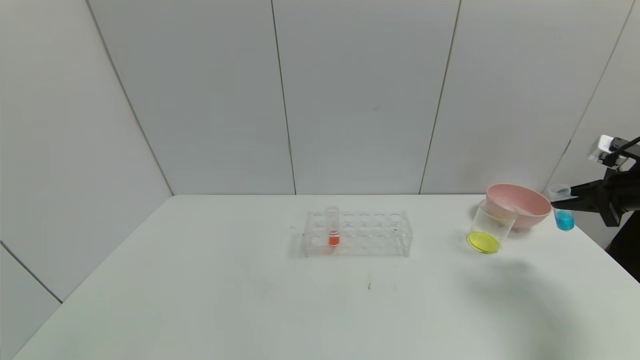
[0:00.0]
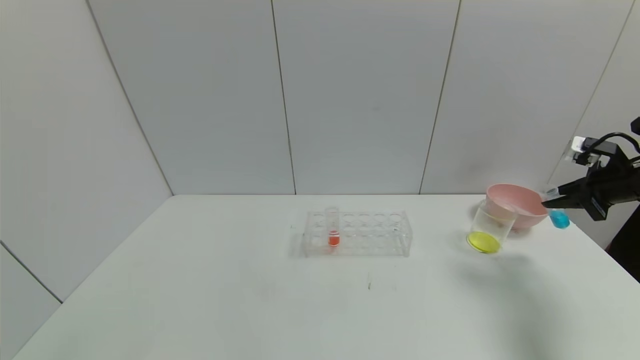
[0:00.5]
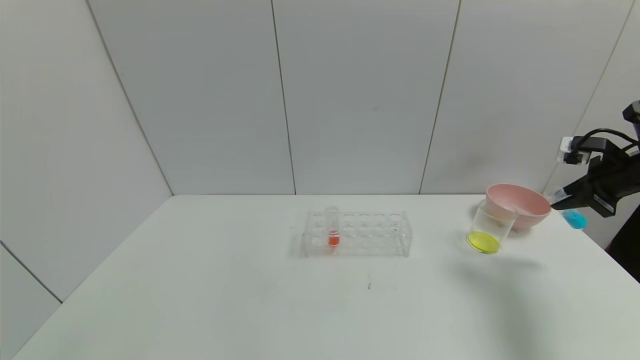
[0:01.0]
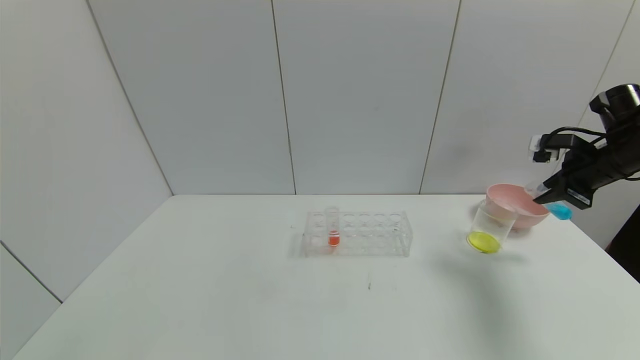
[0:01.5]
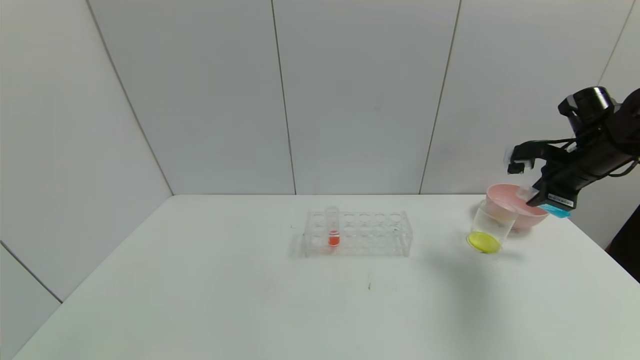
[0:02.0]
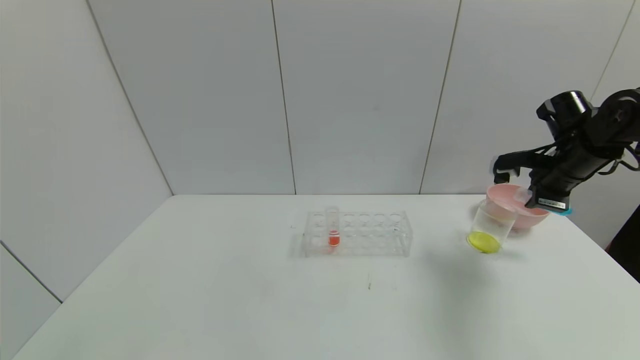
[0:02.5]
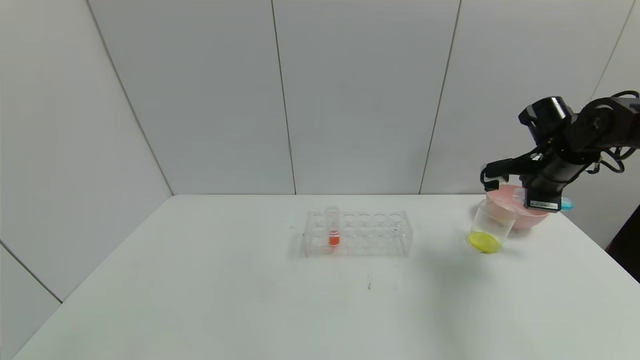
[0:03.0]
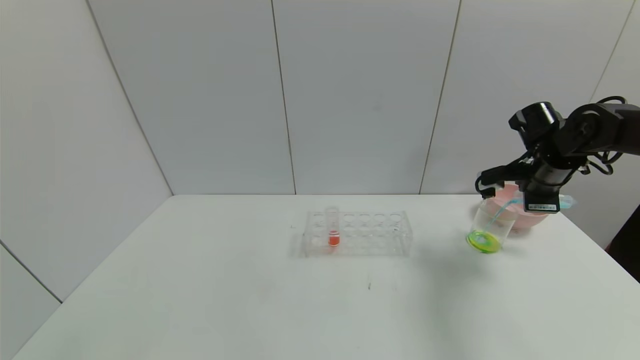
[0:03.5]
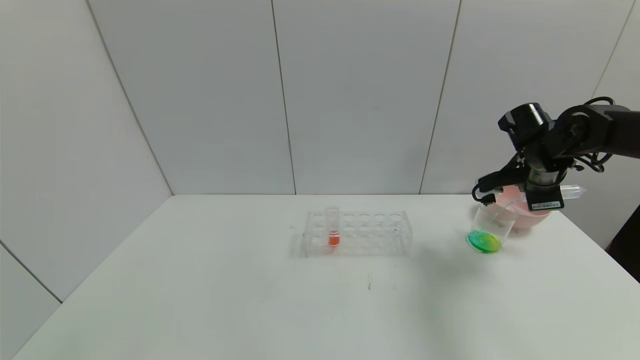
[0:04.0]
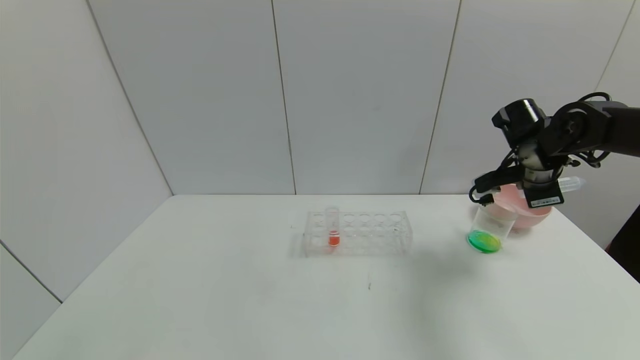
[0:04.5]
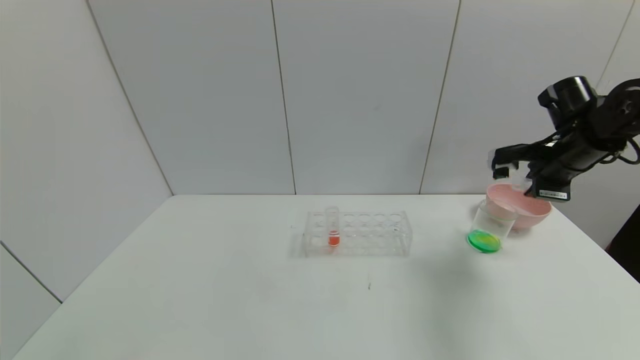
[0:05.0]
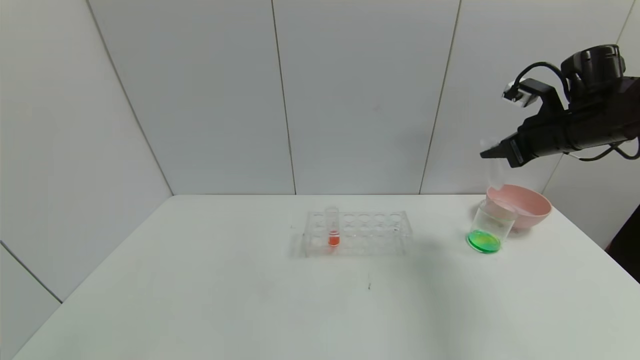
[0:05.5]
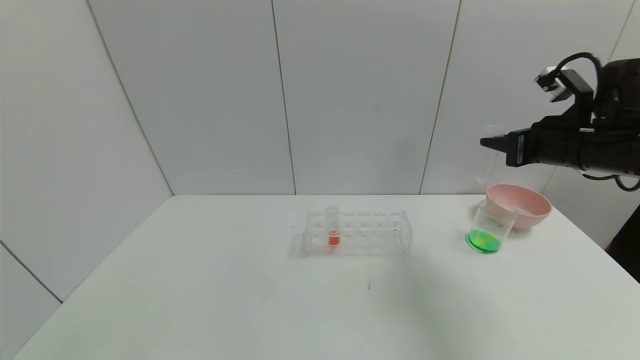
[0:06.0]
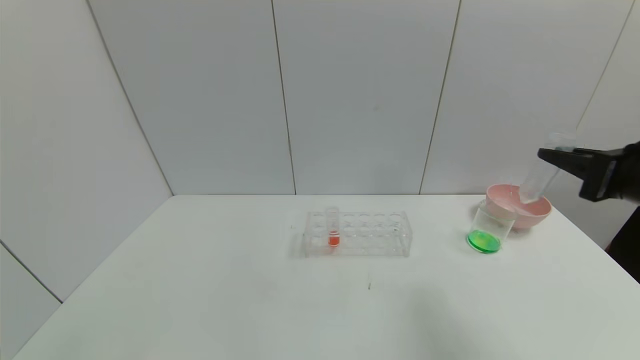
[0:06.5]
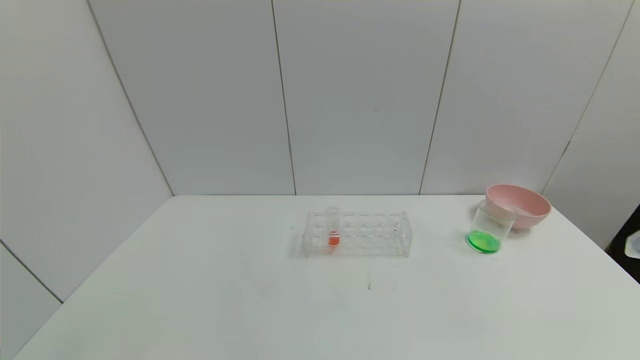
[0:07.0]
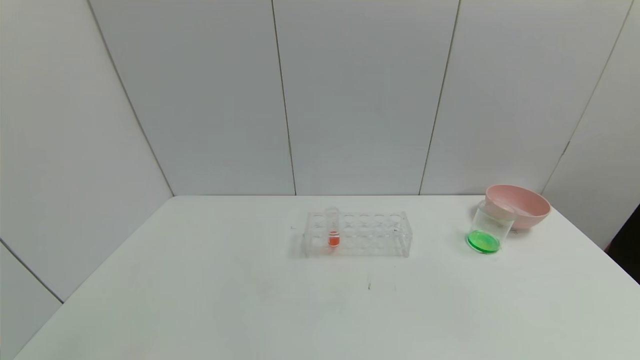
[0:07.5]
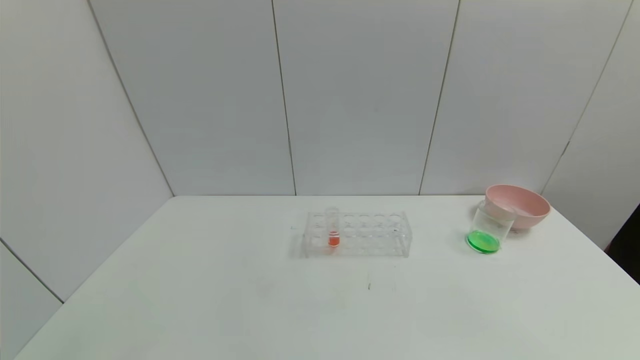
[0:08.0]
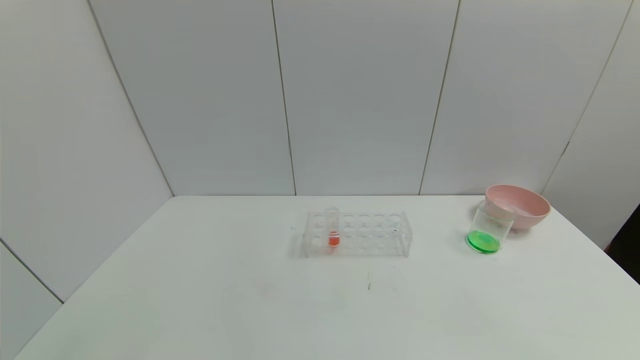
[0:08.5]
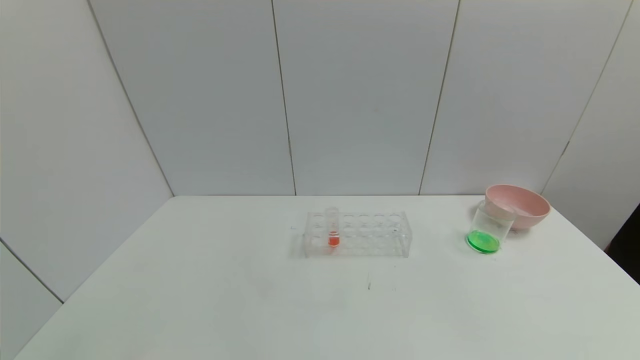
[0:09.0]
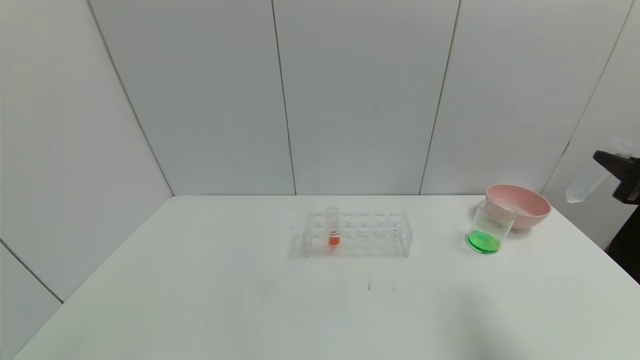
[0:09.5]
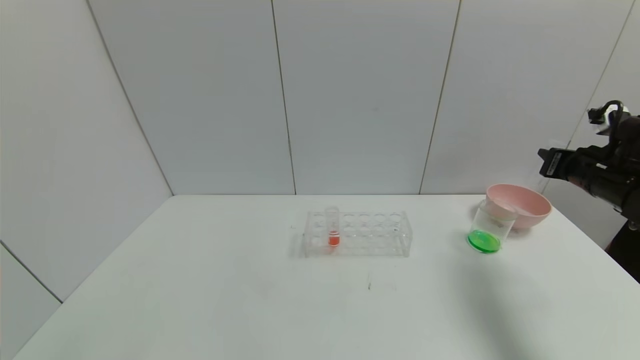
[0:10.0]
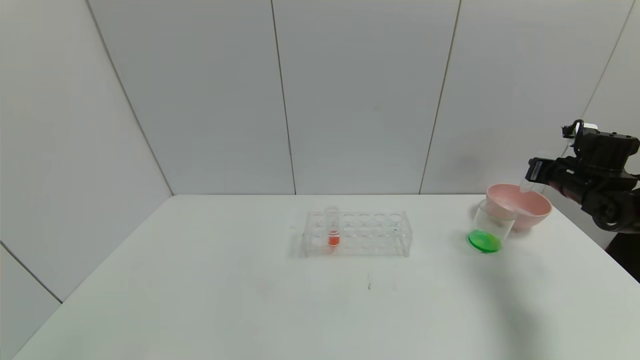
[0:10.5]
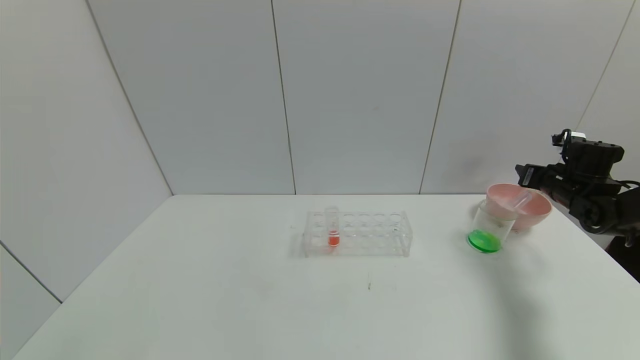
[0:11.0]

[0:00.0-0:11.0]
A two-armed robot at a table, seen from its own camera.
Task of the whole recording: pick up the test tube with yellow pigment and the test tube with blue pigment by grippers and pour them into the beaker.
Step, 0:00.0 to 0:04.5: Pour the blue reagent into the graduated cylinder with the right gripper.
0:00.0 to 0:02.0: The right gripper travels to the left and forward by roughly 10 cm.
0:02.0 to 0:03.5: The right gripper moves approximately 5 cm.
0:03.5 to 0:05.5: The right gripper goes roughly 5 cm upward.
0:05.5 to 0:07.5: The right gripper travels backward by some 40 cm.
0:09.0 to 0:11.0: The right gripper moves forward, approximately 40 cm, and opens up.

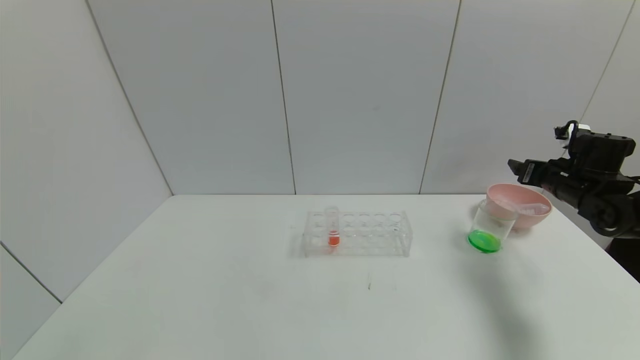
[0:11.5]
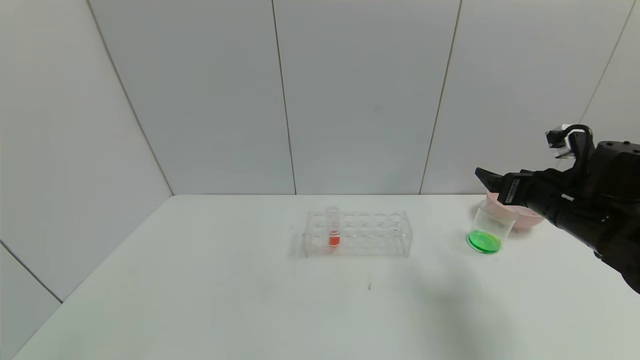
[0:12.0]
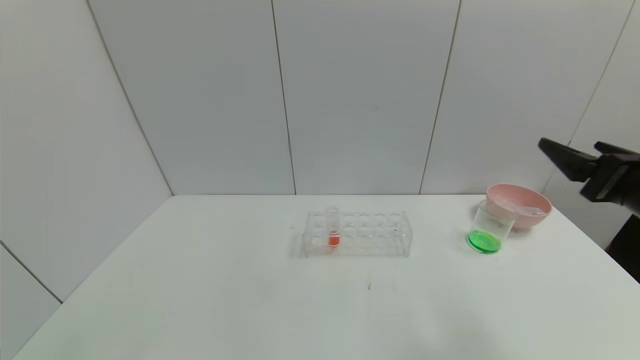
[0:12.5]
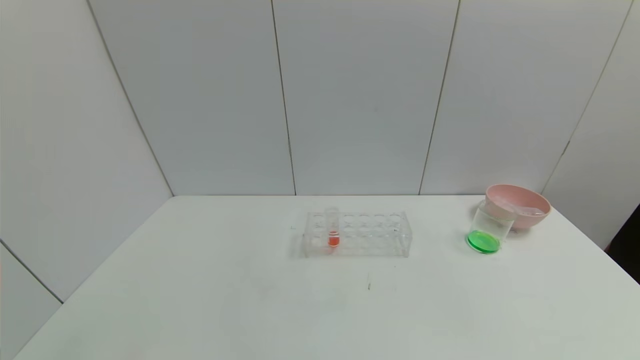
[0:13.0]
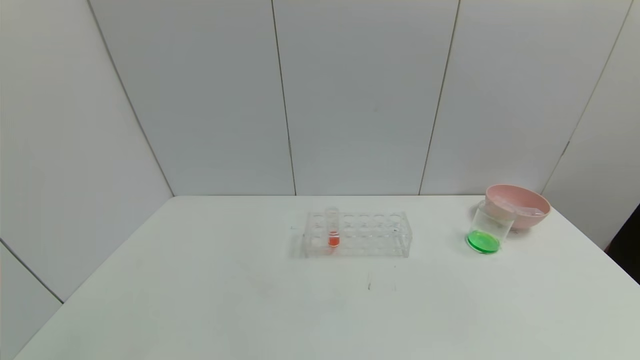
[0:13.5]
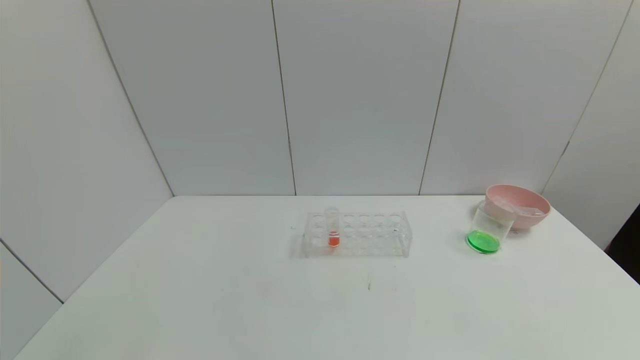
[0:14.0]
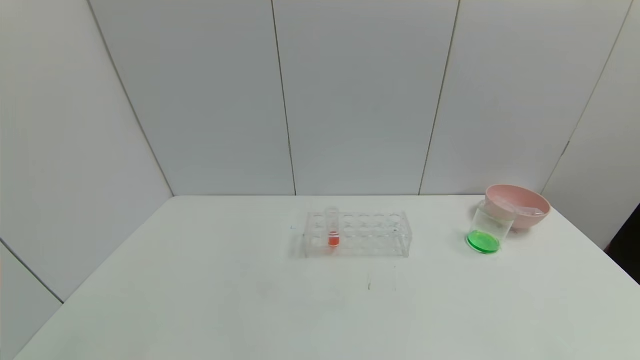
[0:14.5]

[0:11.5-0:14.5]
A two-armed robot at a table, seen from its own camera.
Task of the whole recording: pick up the test tube with yellow pigment and the test tube with blue pigment by grippers and pour them into the beaker.
0:11.5 to 0:13.0: The right gripper travels backward by about 40 cm.

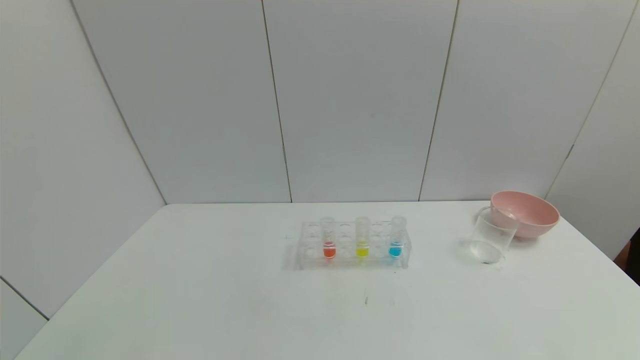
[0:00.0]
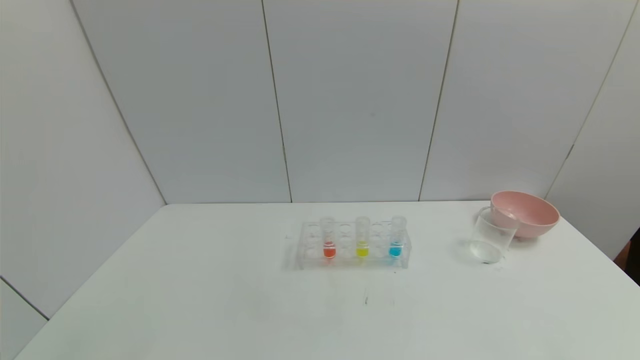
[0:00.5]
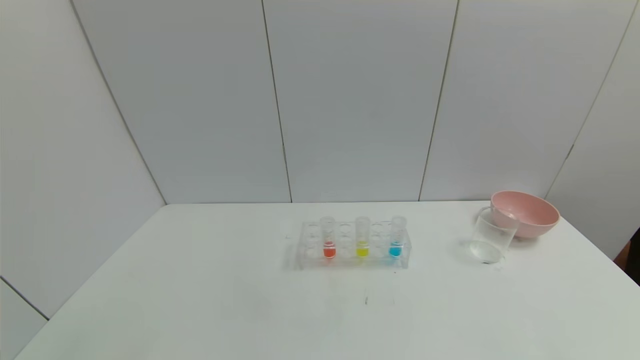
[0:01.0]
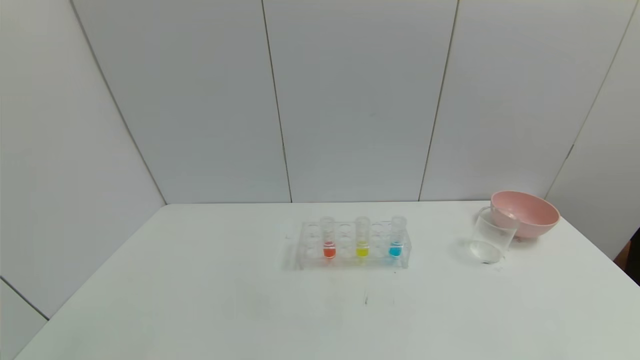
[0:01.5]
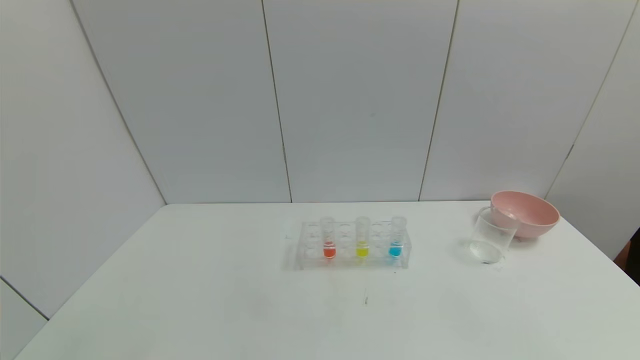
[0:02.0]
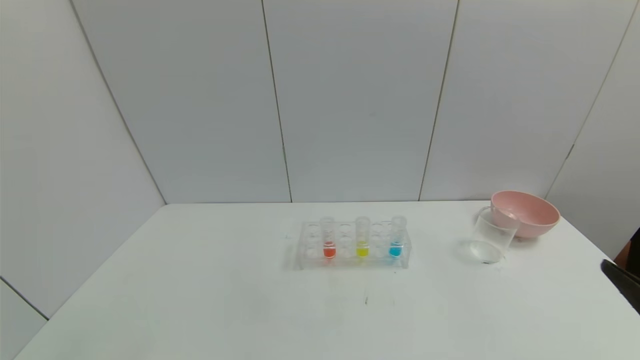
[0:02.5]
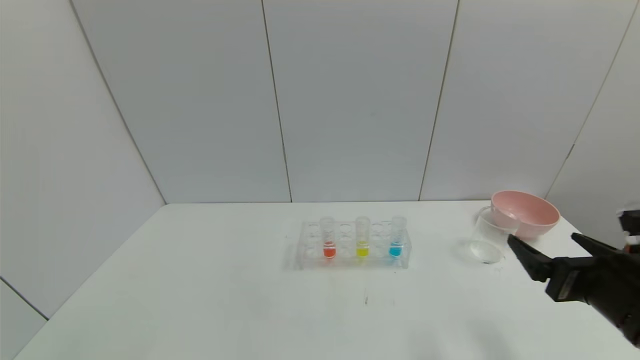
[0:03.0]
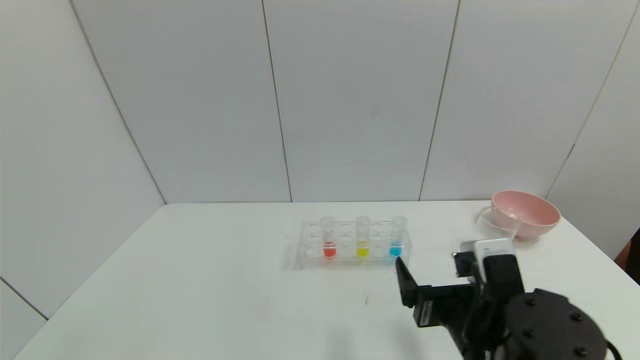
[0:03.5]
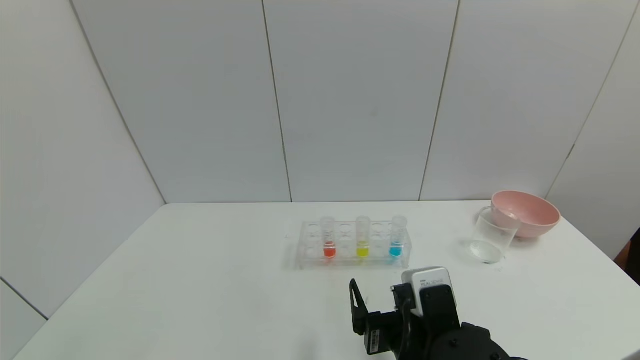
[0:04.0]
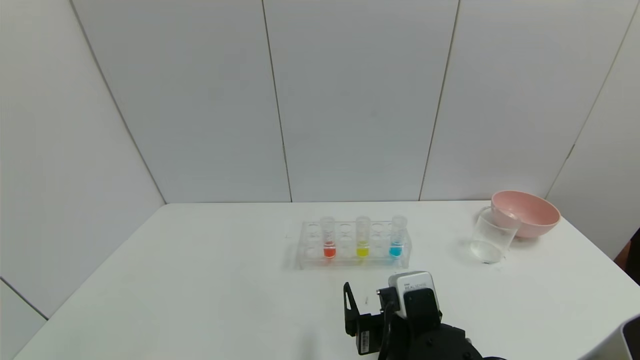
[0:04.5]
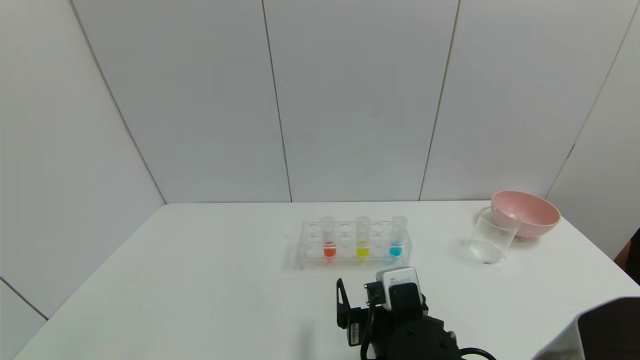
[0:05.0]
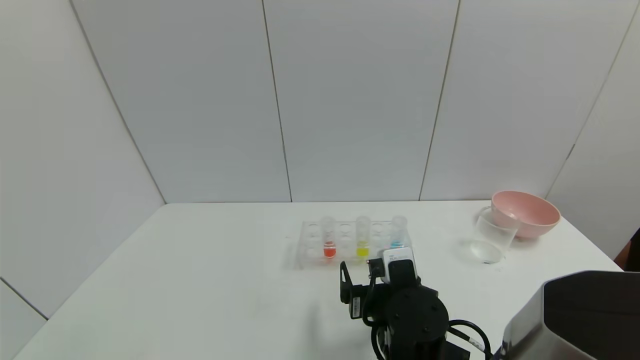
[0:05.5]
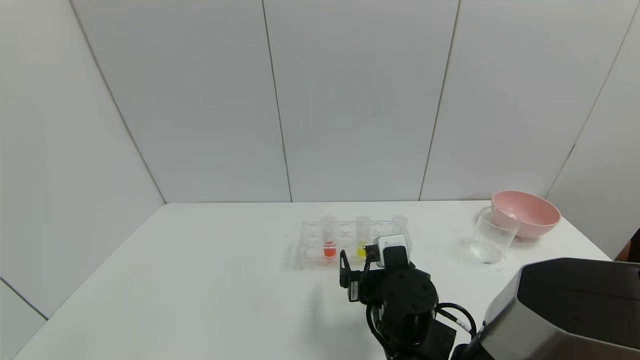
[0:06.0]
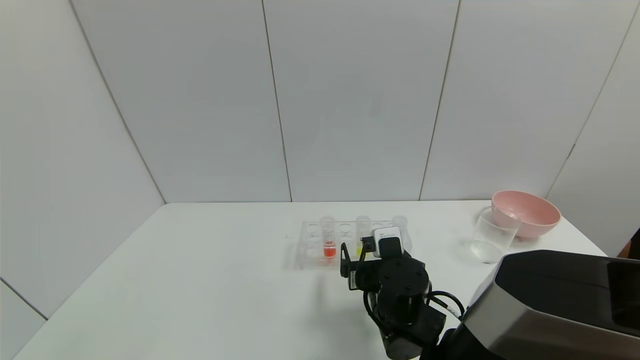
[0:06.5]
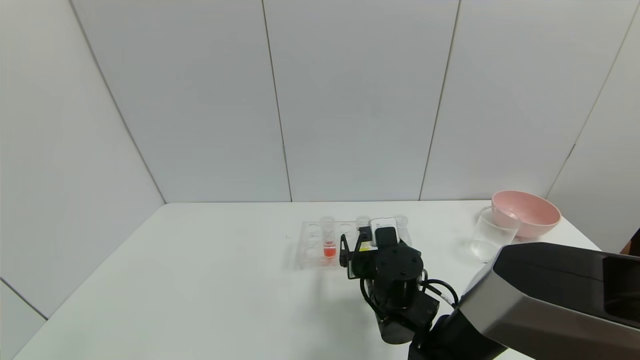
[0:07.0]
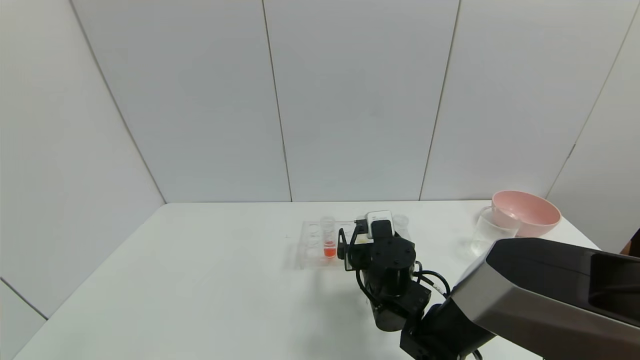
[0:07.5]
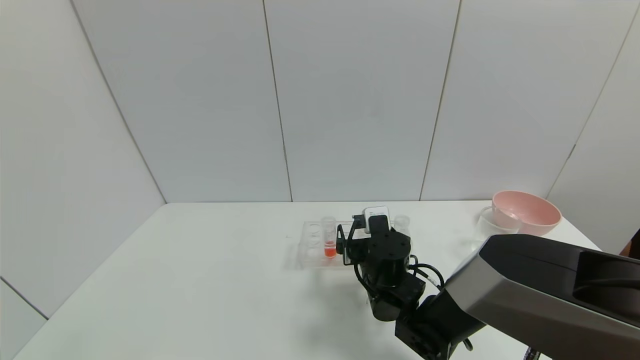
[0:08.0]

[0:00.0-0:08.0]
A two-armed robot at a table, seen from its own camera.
Task of the whole recording: pick up the test tube with yellow pigment and the test tube with blue pigment by grippers and pour them into the beaker.
0:02.0 to 0:04.0: The right gripper moves to the left and forward, about 30 cm.
0:04.0 to 0:06.0: The right gripper moves forward, some 10 cm.
0:06.0 to 0:08.0: The right gripper travels forward by approximately 10 cm.
